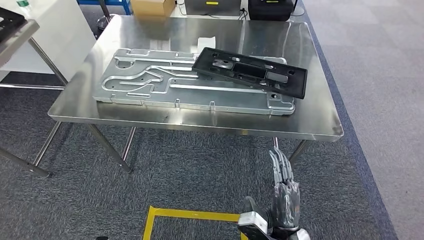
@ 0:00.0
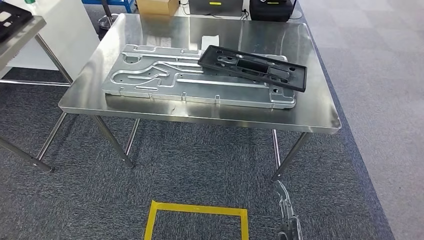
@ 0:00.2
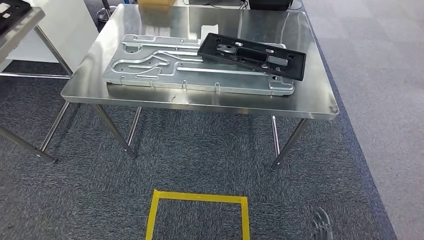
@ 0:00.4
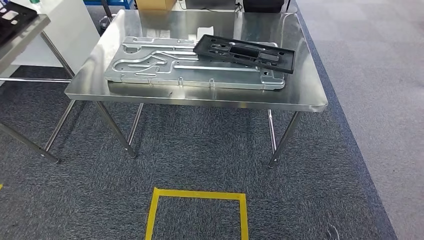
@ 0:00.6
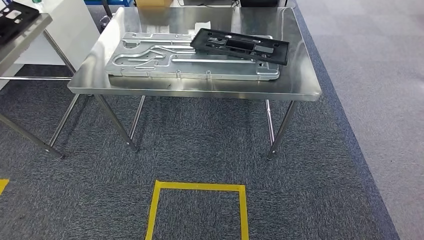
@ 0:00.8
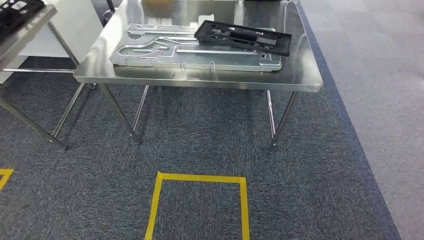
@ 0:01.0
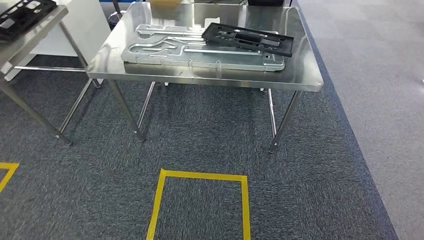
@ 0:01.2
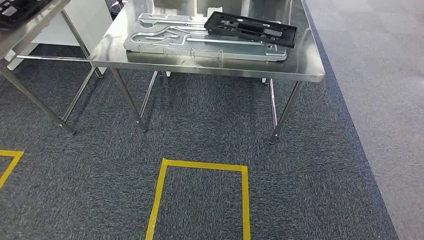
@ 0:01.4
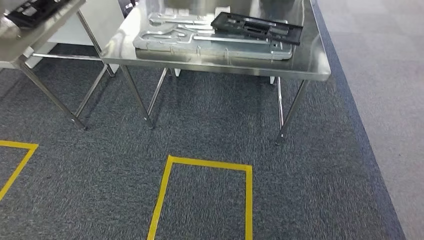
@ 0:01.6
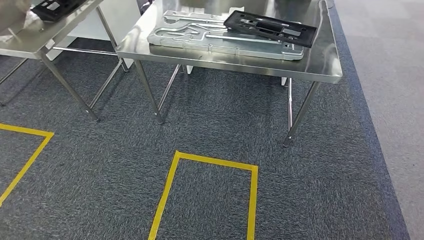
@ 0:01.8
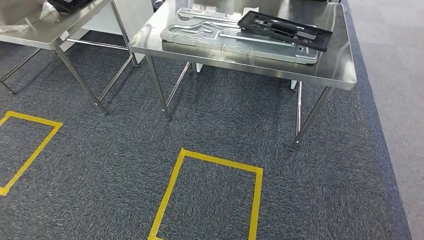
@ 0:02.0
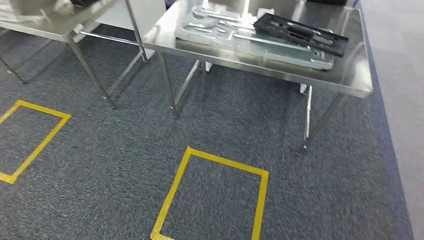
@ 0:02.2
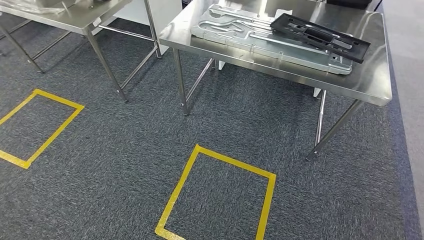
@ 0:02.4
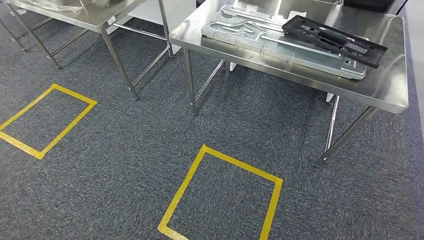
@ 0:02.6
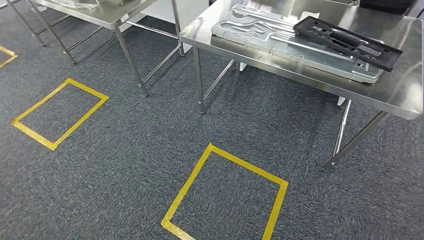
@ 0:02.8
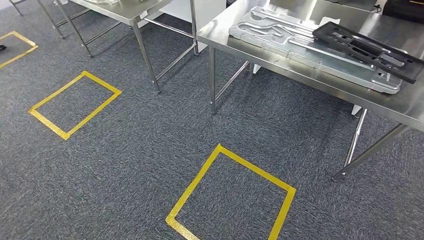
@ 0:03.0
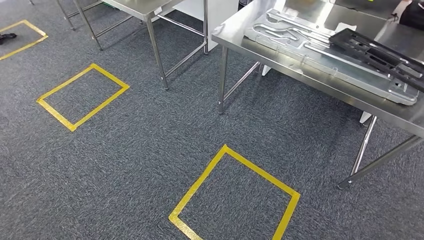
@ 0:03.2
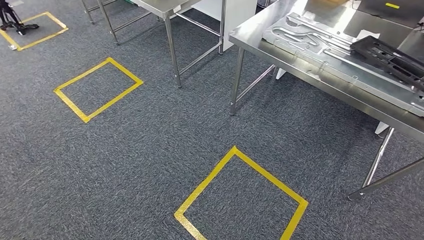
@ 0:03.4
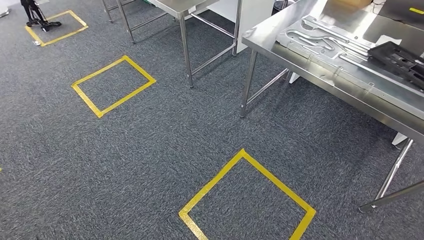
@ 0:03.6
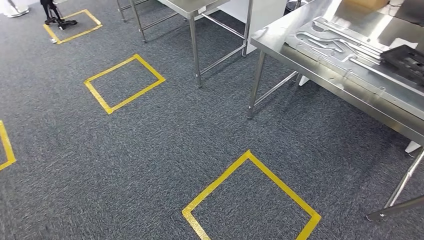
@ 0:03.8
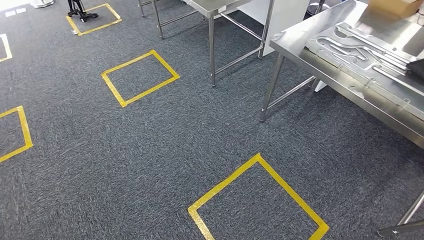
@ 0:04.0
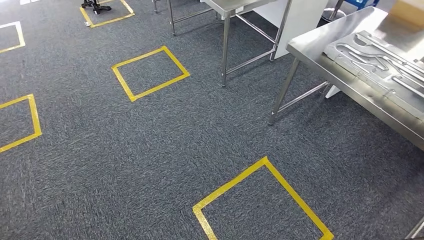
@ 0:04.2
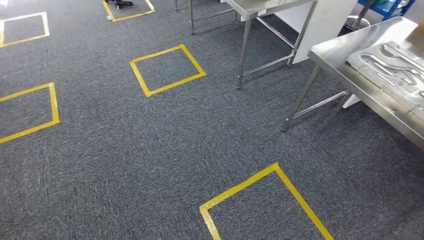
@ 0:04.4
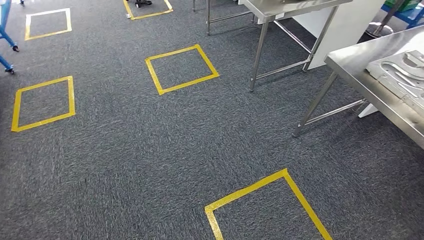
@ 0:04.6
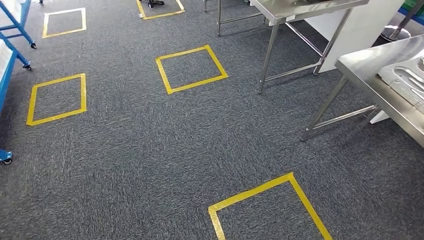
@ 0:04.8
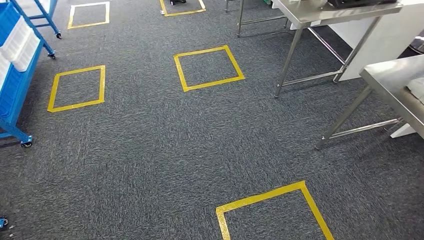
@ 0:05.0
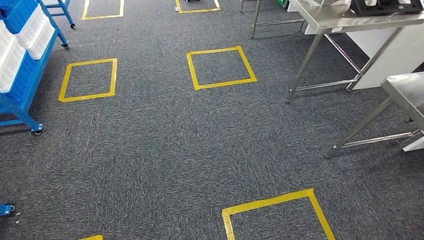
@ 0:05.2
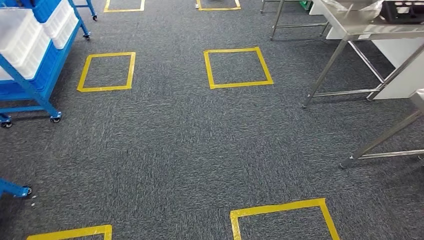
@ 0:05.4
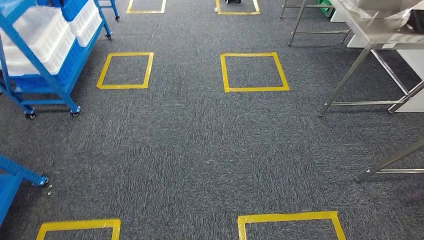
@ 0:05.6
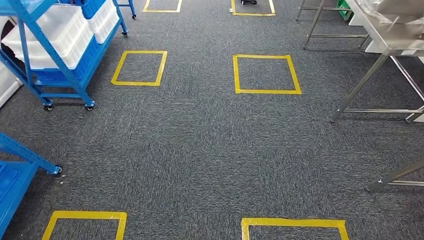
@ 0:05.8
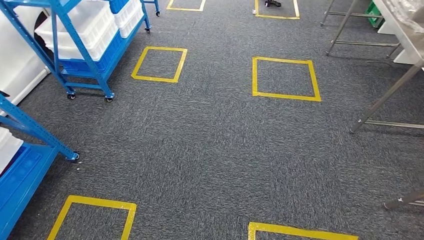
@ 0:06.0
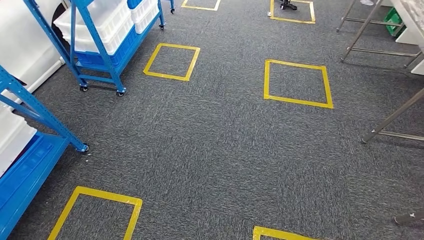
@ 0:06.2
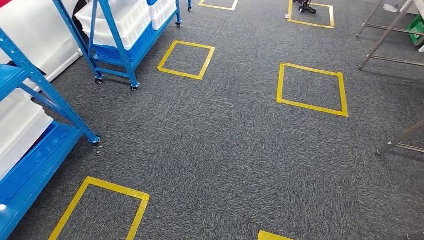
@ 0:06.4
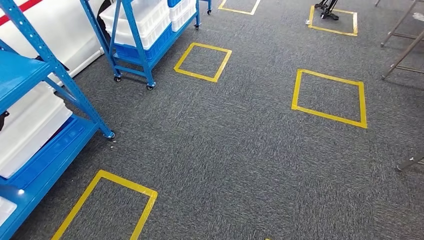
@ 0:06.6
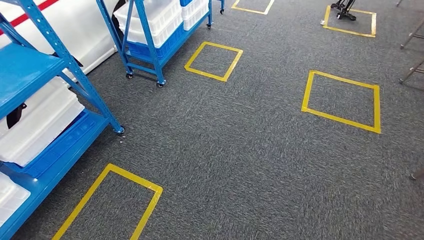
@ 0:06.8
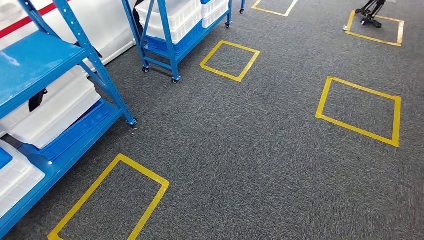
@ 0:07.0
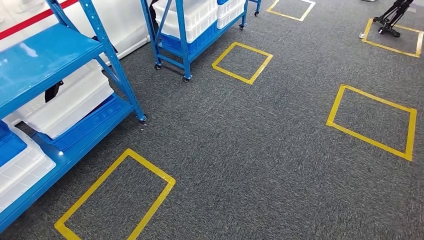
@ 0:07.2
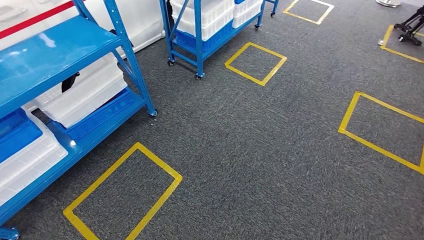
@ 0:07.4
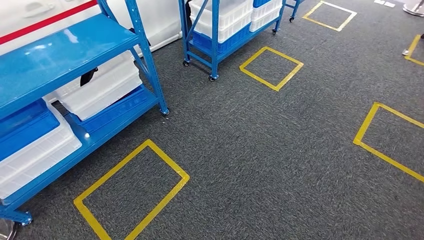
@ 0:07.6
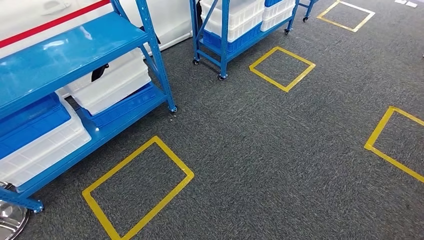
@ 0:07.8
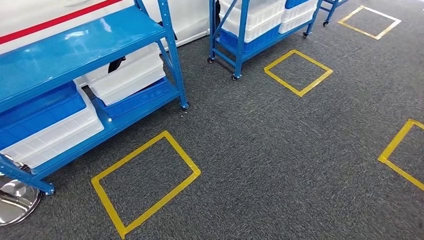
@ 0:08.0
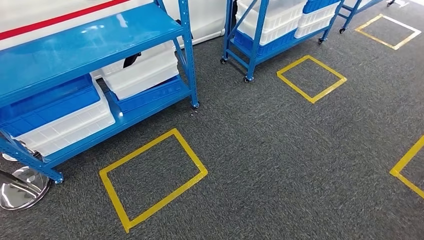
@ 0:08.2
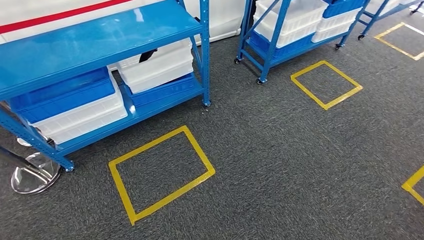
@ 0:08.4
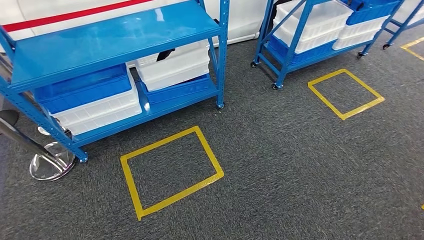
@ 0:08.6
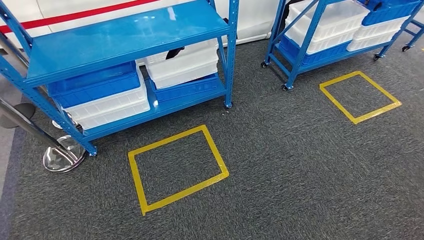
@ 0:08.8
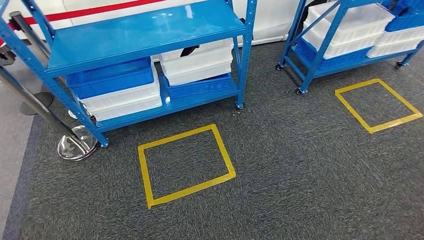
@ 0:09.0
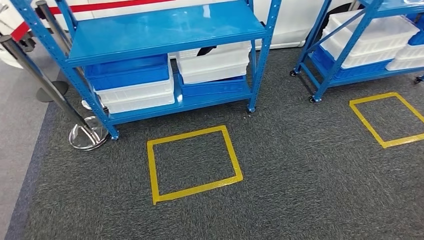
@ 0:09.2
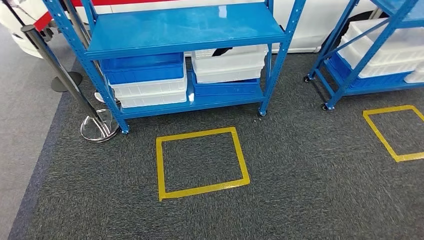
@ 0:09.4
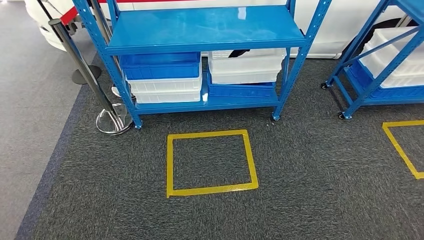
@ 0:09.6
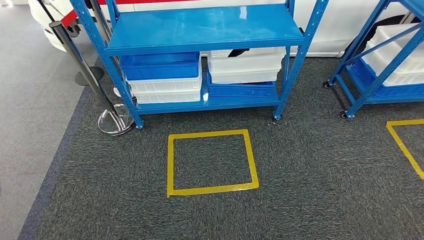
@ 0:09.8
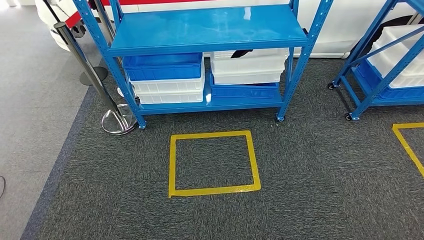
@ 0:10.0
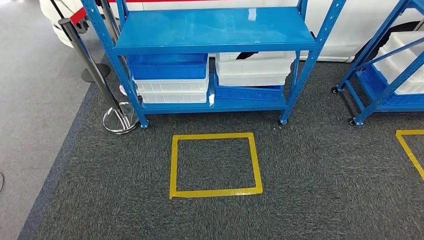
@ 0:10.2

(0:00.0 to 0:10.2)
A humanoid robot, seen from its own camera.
Step, 0:03.0 - 0:10.2: Move to the initial position of the shelf.
